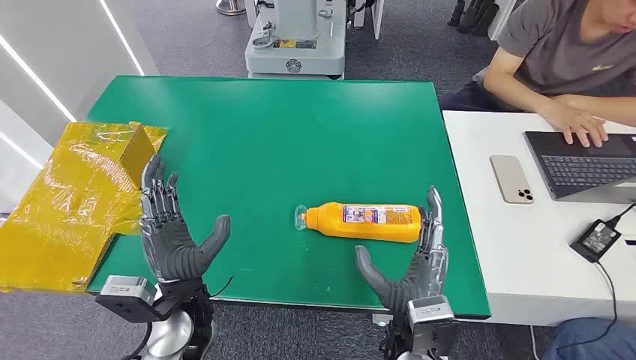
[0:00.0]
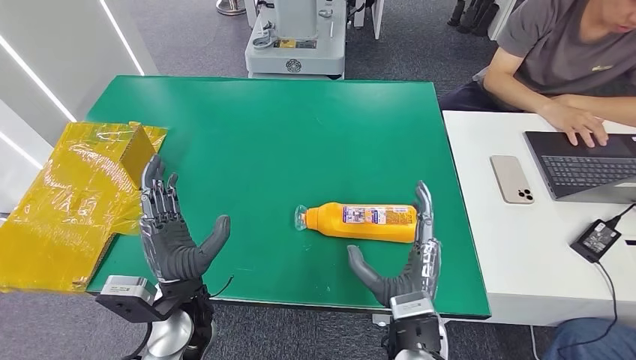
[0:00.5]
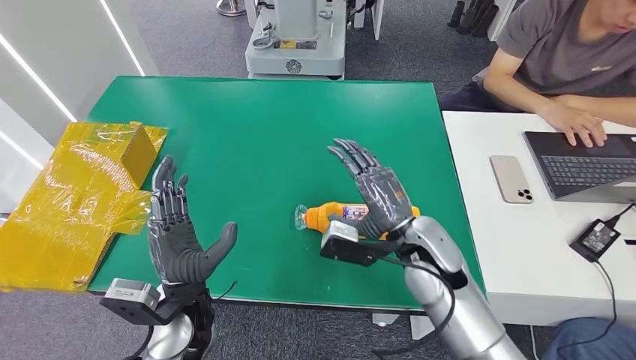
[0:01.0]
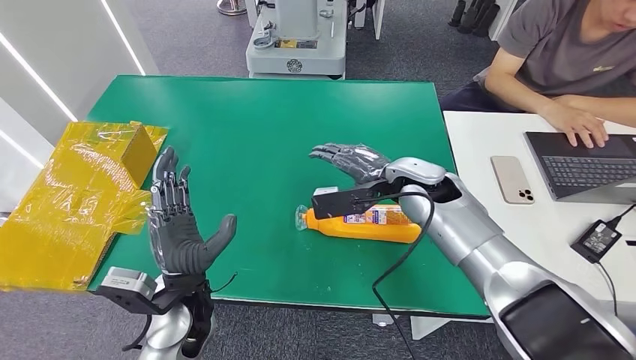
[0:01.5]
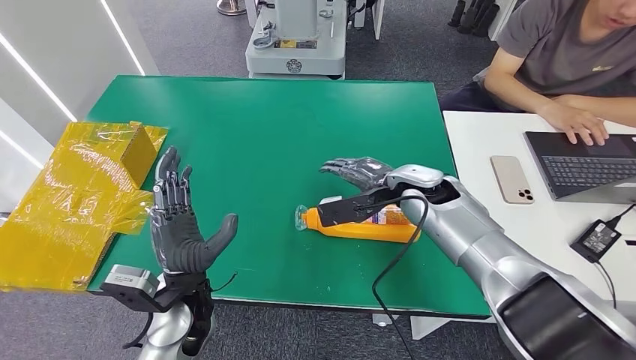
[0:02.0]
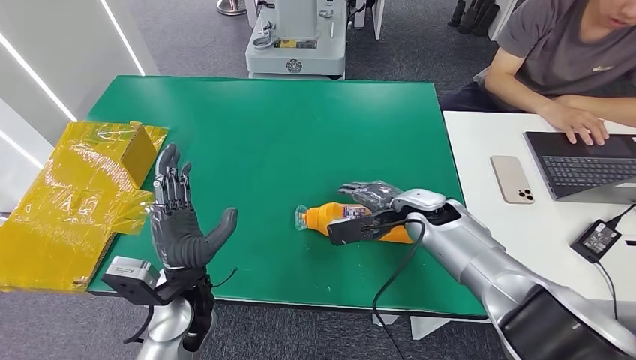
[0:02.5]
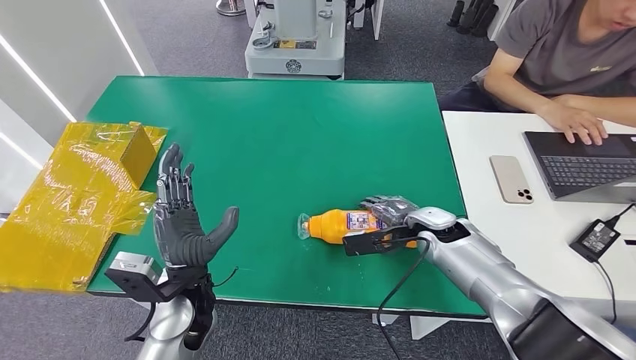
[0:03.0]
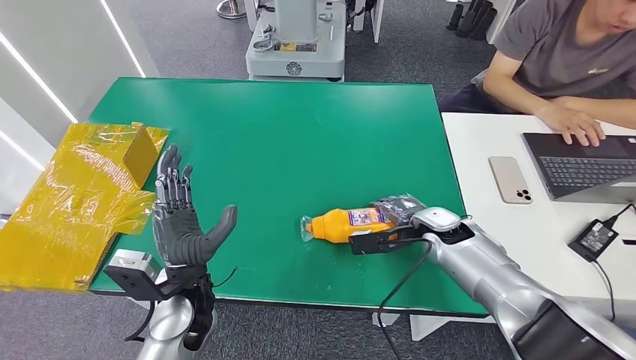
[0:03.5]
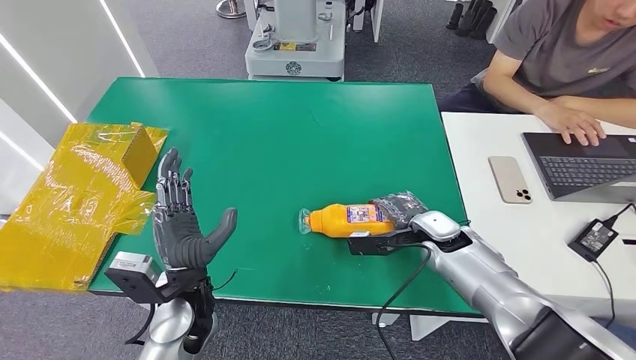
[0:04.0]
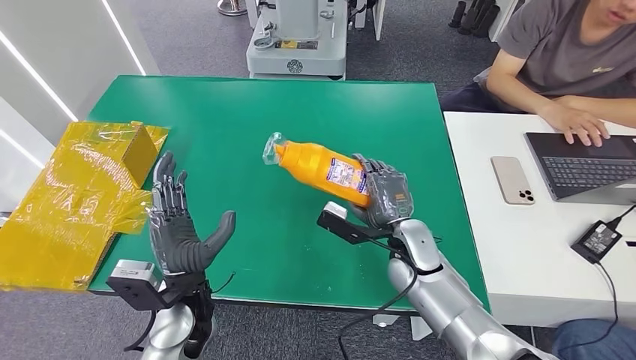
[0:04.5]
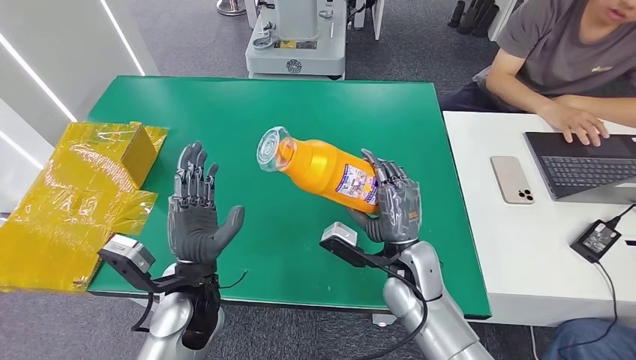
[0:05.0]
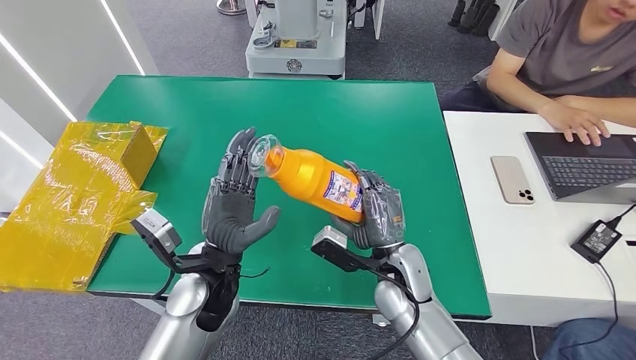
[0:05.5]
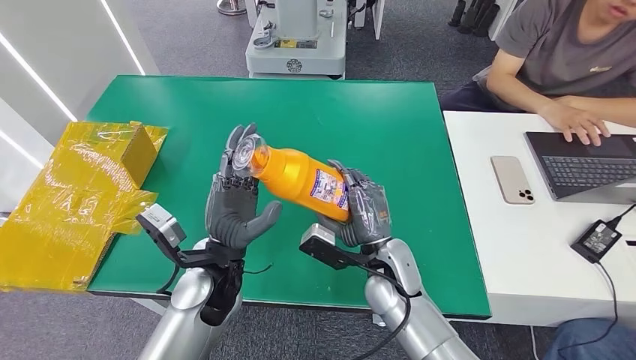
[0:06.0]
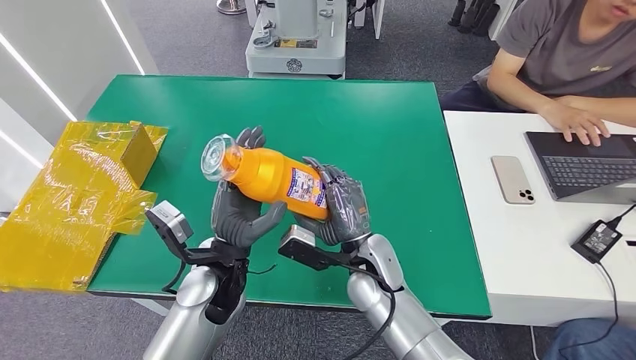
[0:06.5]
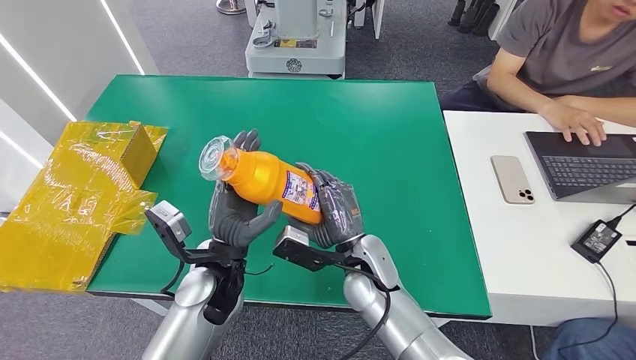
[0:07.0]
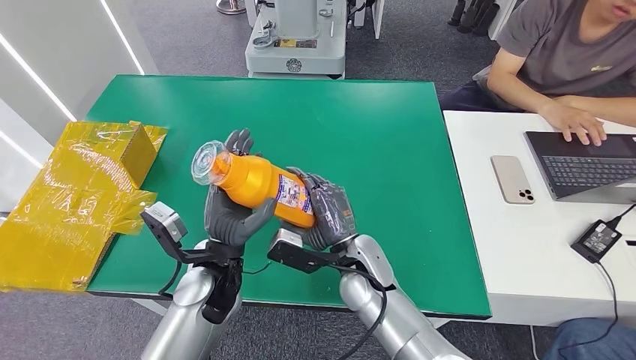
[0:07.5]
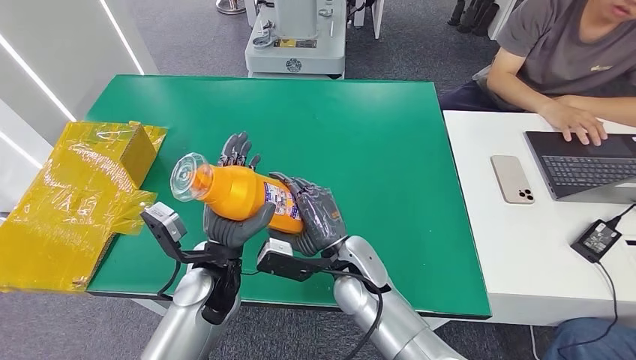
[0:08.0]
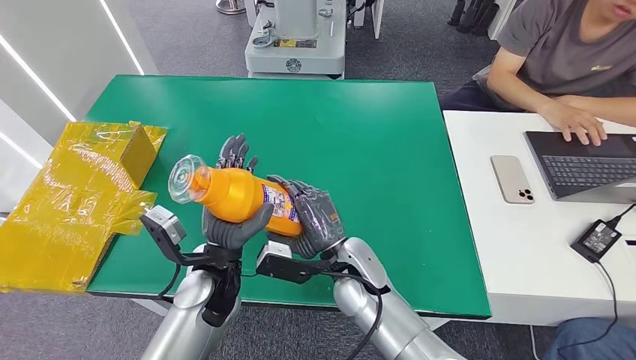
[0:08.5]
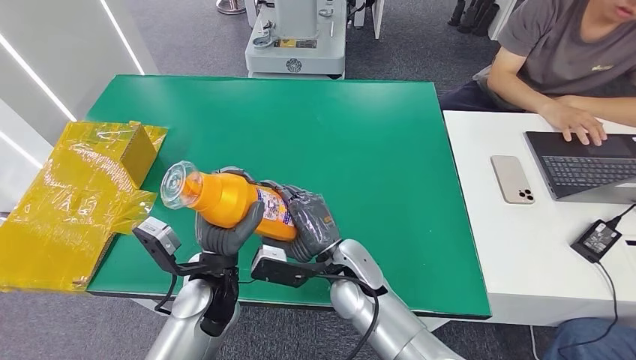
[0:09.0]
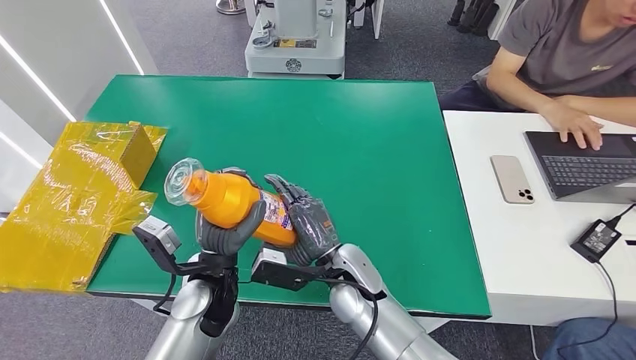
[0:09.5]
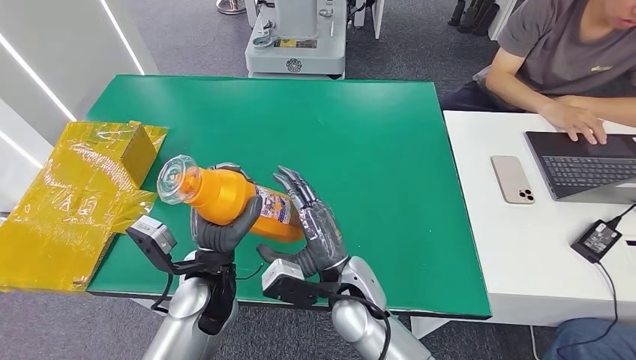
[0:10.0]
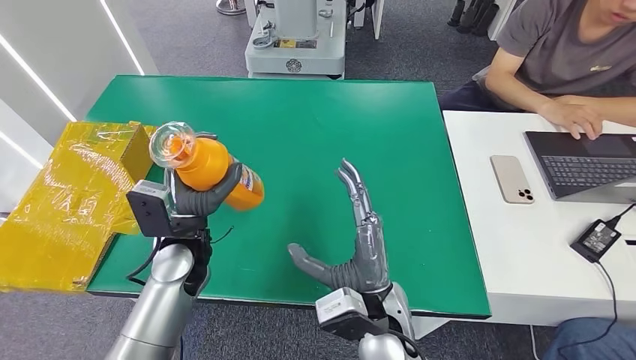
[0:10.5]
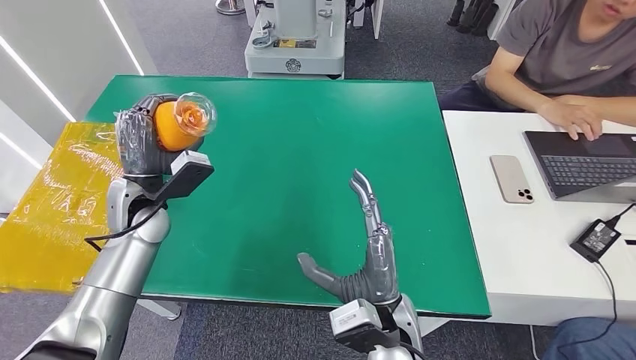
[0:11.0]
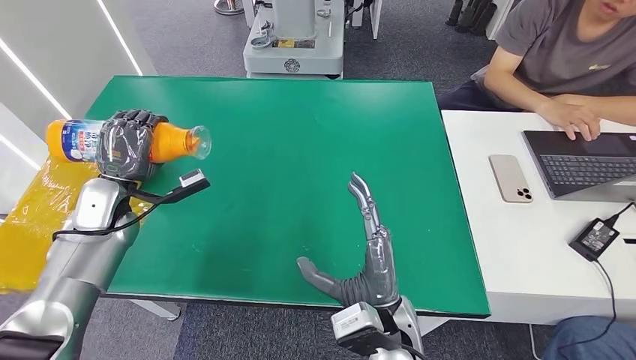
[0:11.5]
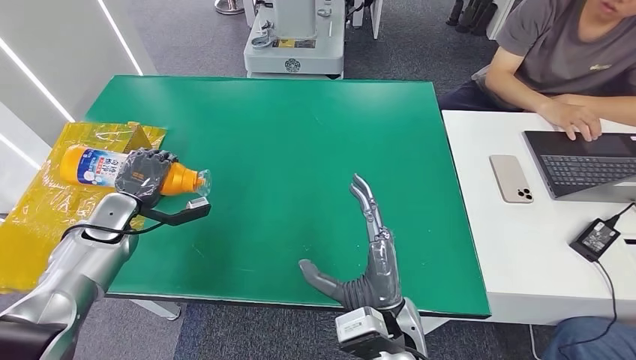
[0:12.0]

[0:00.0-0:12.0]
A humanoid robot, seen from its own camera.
Step, 0:00.0 to 0:05.0: Pick up the bottle from the table.
Step, 0:06.0 to 0:12.0: Turn the bottle to the front side.
0:02.0 to 0:04.0: The right hand is displaced downward and to the right by approximately 10 cm.
0:06.0 to 0:08.0: The right hand travels to the left by some 5 cm.
0:08.0 to 0:10.0: The hands move only a little.
0:10.0 to 0:12.0: The right hand heads backward, covering about 5 cm, while the left hand shifts roughly 30 cm to the left and forward.
